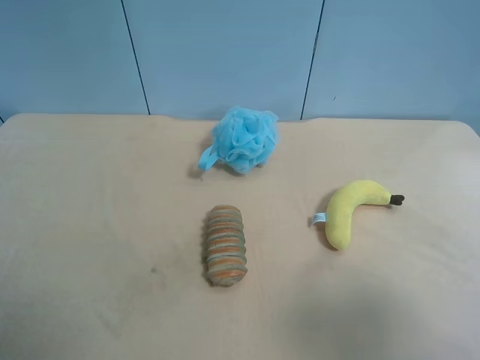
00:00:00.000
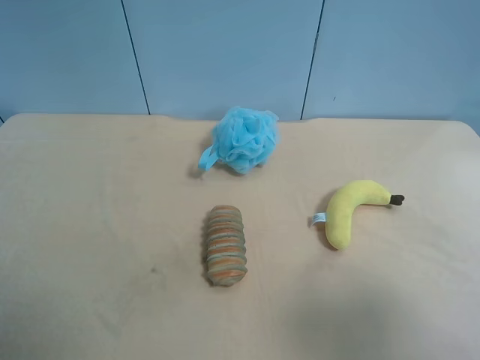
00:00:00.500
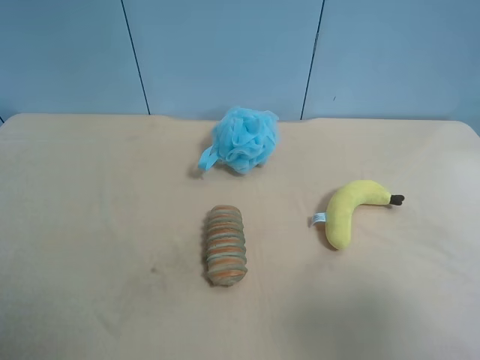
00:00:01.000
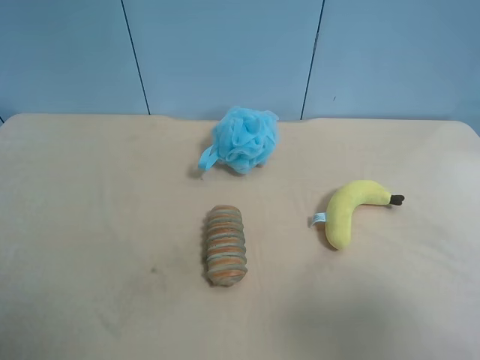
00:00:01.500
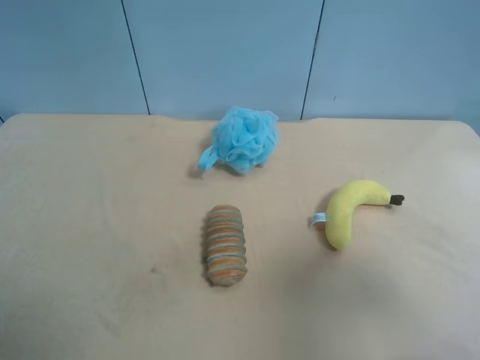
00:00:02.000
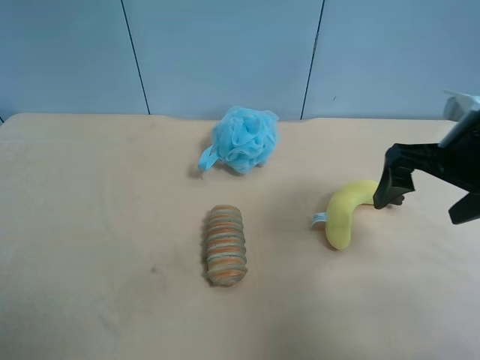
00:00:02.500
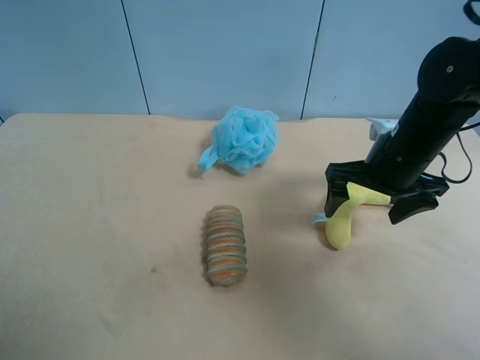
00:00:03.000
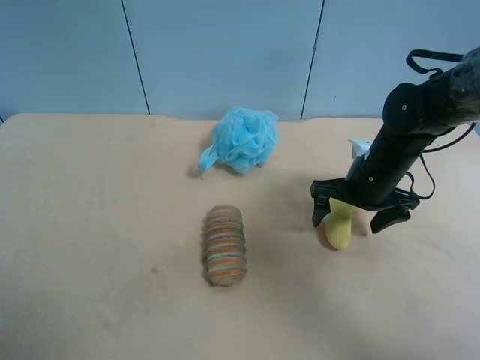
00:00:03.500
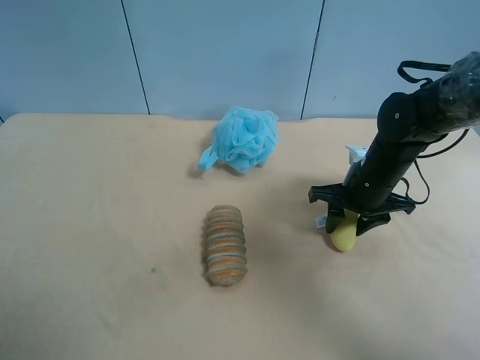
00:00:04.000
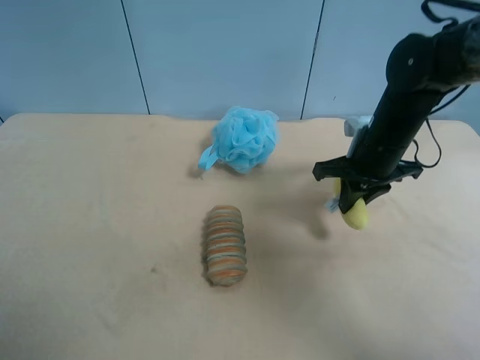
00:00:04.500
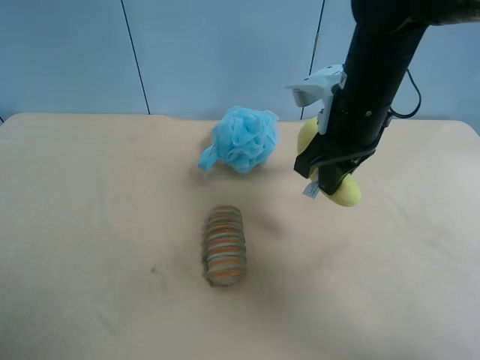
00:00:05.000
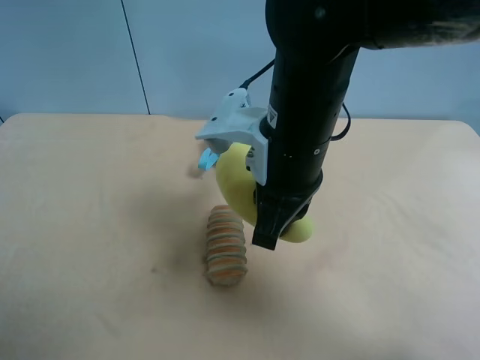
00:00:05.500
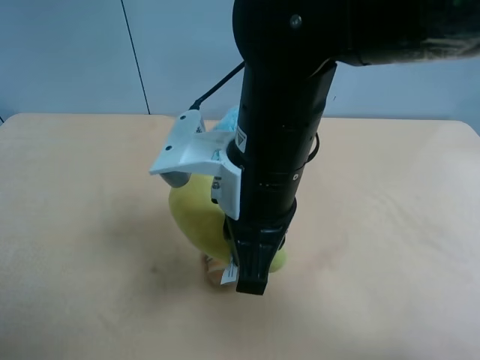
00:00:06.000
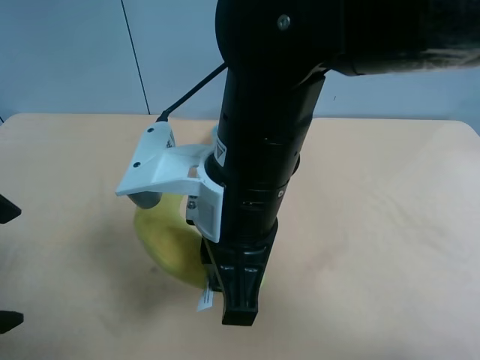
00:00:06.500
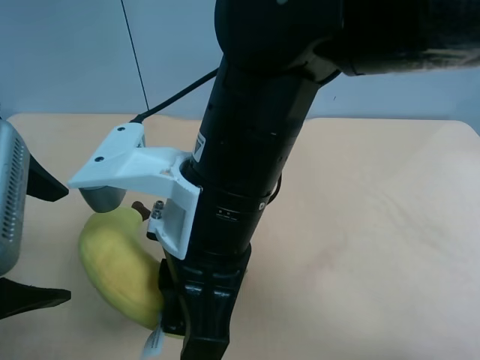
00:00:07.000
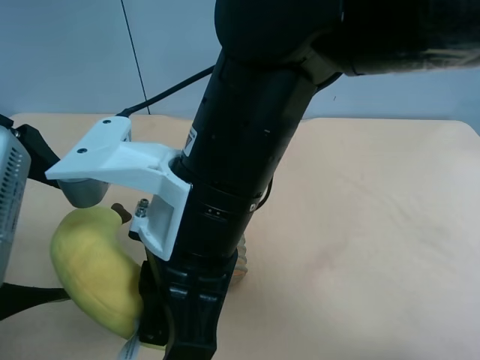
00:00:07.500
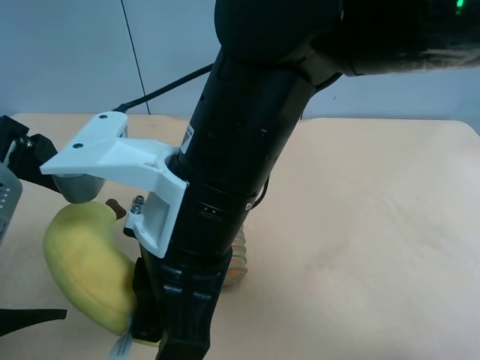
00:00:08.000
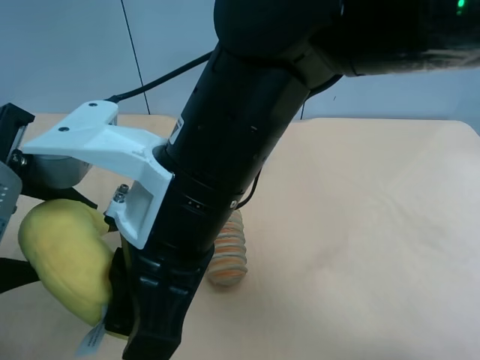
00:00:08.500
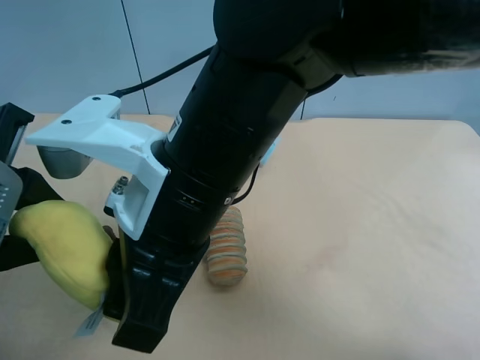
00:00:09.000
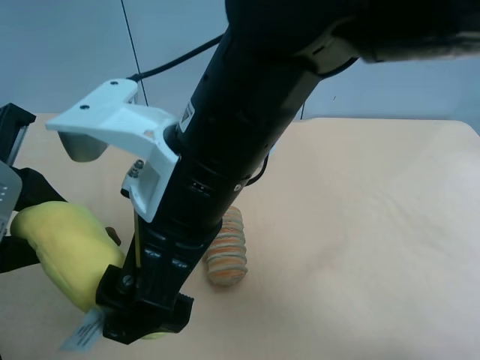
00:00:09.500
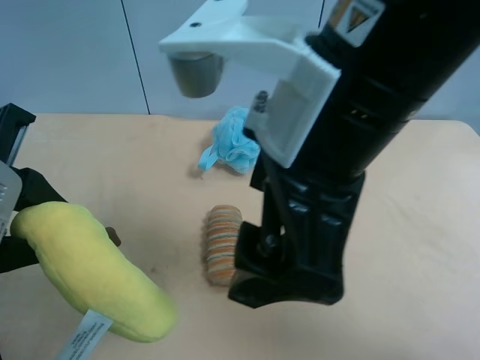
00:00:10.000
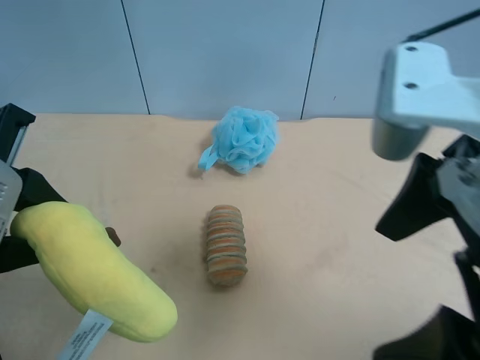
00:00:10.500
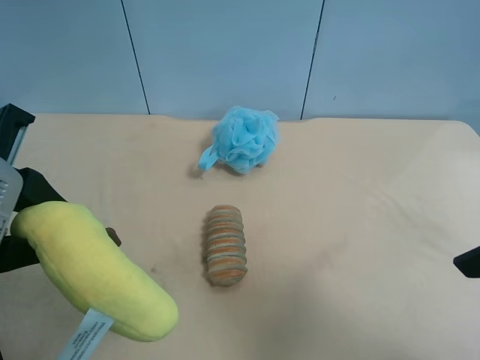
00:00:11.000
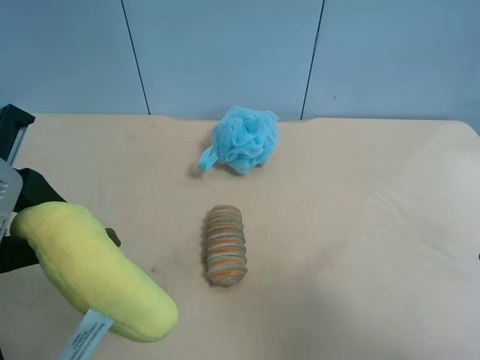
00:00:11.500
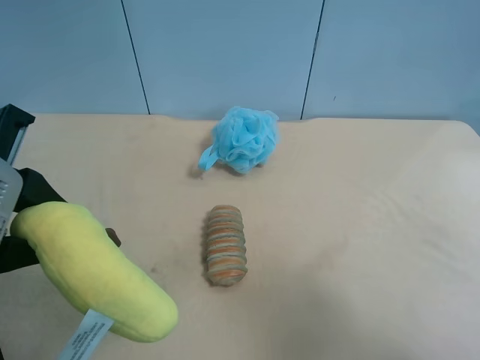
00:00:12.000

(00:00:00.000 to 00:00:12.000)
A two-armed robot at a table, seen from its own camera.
Task of the whole recording: use the right gripper to pick up the item and transfer it from the right gripper to the left gripper.
00:00:00.000 - 00:00:02.000: The right gripper moves forward, roughly 10 cm.
00:00:02.000 - 00:00:04.000: The right gripper is displaced forward and downward by approximately 30 cm, and closes.
00:00:04.000 - 00:00:06.000: The right gripper moves to the left, upward and backward, roughly 25 cm; the left gripper is displaced forward by some 5 cm.
00:00:06.000 - 00:00:08.000: The left gripper moves to the right and forward, approximately 10 cm; the right gripper moves approximately 5 cm.
00:00:08.000 - 00:00:10.000: The left gripper closes its fingers; the right gripper goes some 10 cm to the right and upward, and opens.
00:00:10.000 - 00:00:12.000: The right gripper is displaced to the right and backward by about 25 cm.

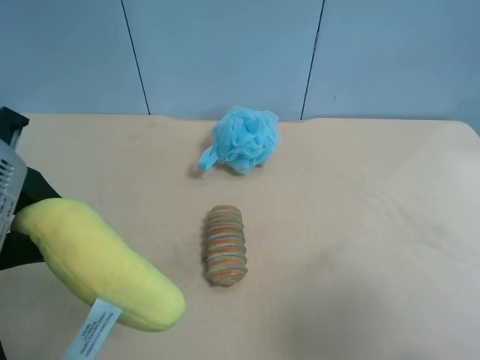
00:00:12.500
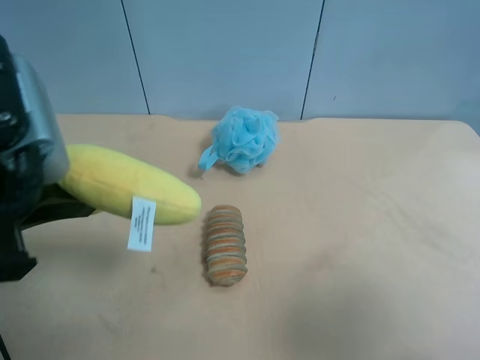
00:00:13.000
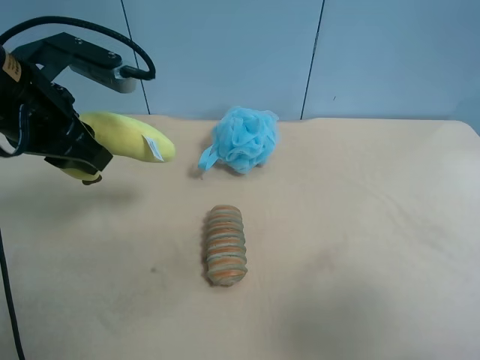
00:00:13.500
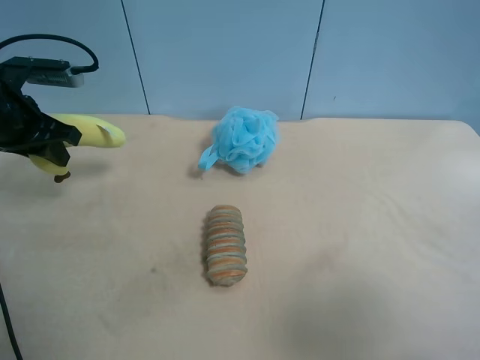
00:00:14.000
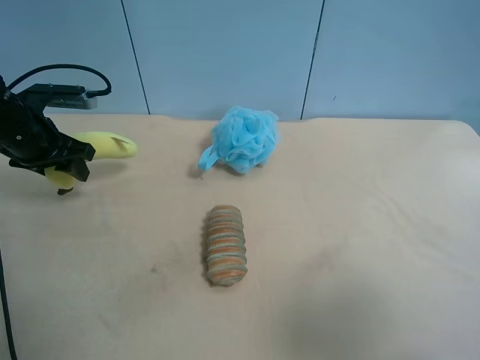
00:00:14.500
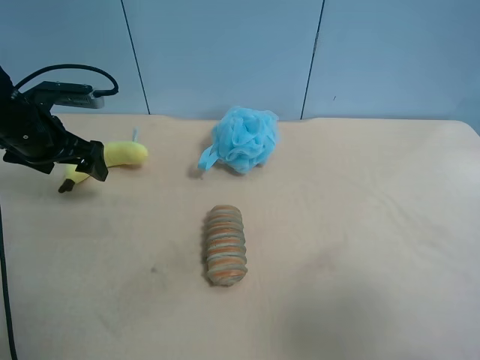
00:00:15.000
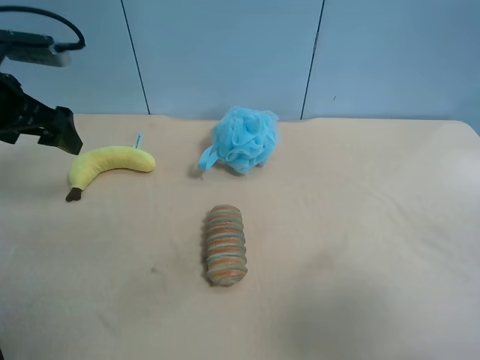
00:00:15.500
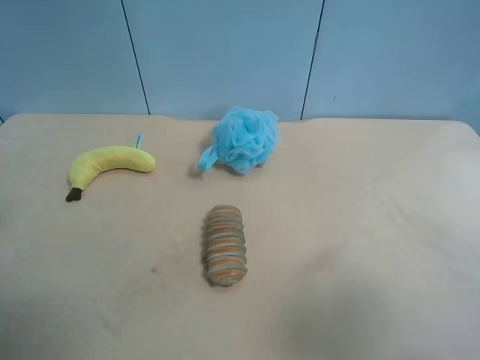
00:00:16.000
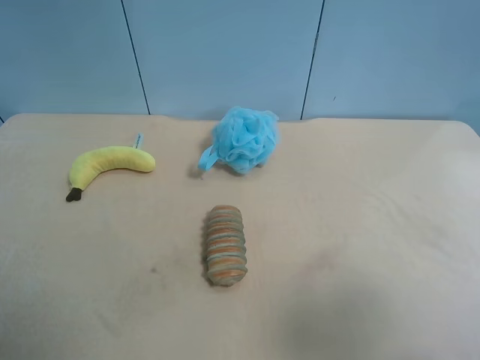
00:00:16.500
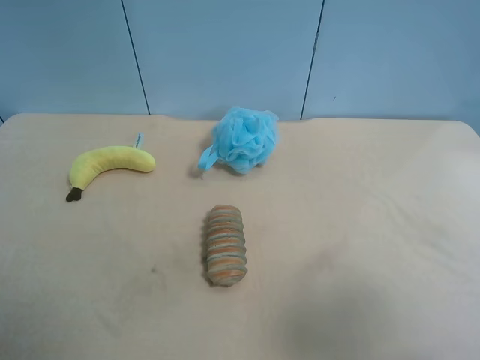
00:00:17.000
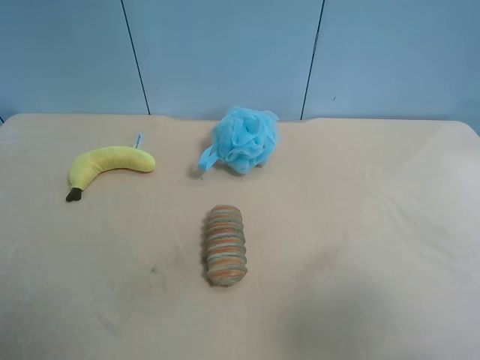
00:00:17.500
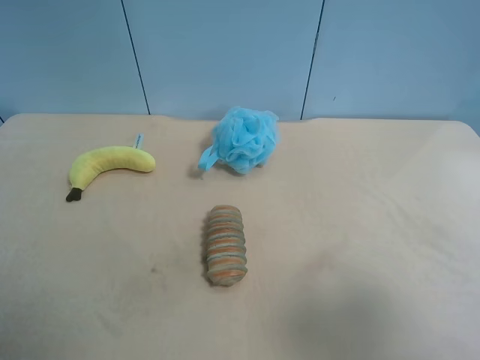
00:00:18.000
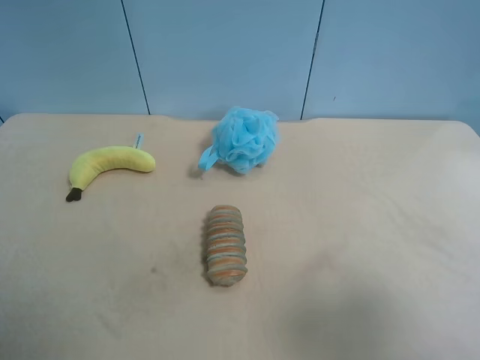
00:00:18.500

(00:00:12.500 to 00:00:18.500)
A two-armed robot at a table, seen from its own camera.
Task of the whole recording: use the right gripper to pick up the item and transfer it from the right gripper to the left gripper.
00:00:12.500 - 00:00:14.500: The left gripper heads forward, downward and to the left, covering approximately 25 cm, and opens up.
00:00:14.500 - 00:00:16.500: The left gripper moves backward and upward, about 35 cm, and opens.
